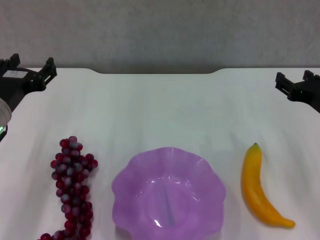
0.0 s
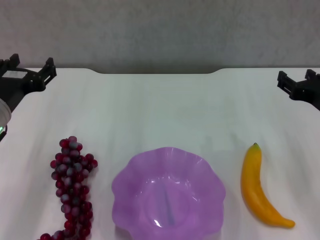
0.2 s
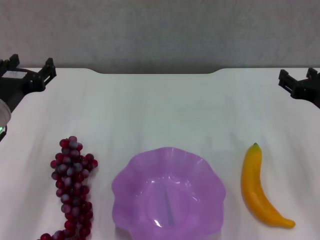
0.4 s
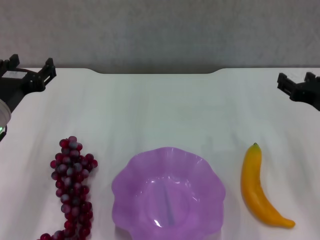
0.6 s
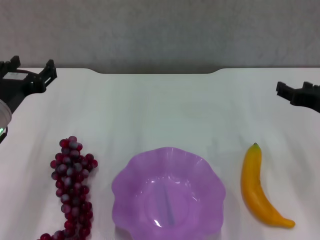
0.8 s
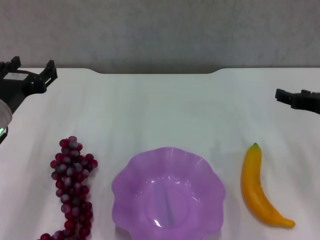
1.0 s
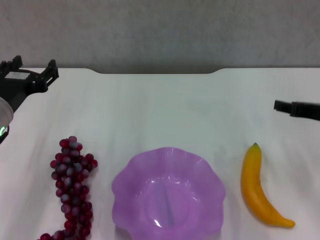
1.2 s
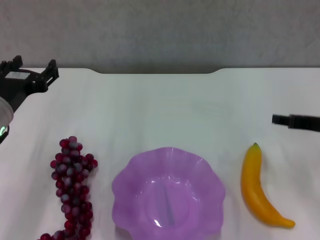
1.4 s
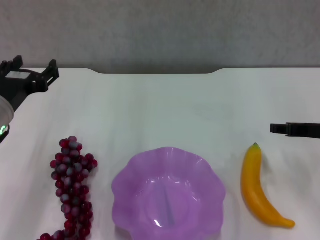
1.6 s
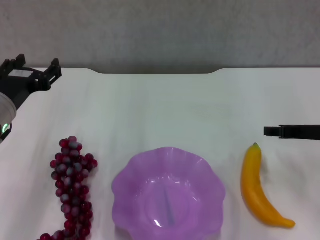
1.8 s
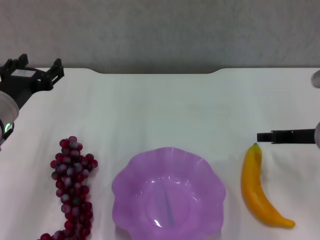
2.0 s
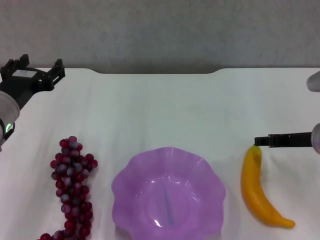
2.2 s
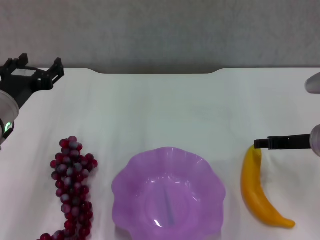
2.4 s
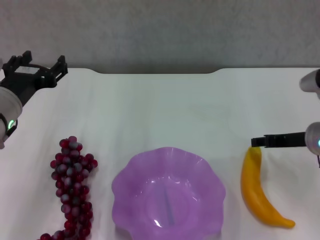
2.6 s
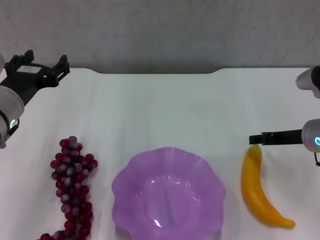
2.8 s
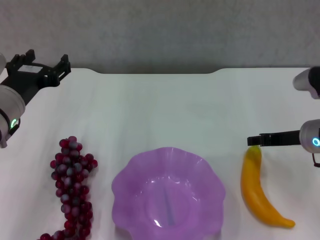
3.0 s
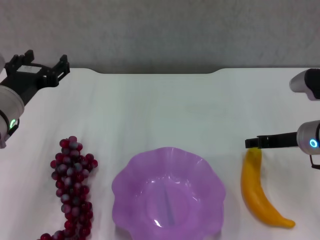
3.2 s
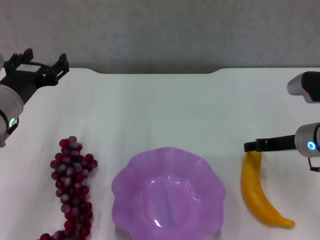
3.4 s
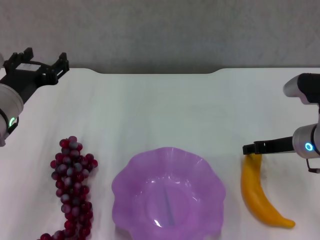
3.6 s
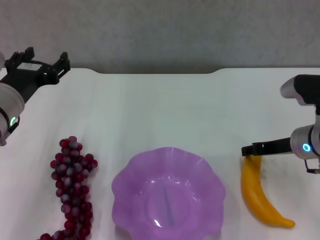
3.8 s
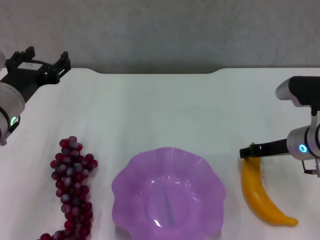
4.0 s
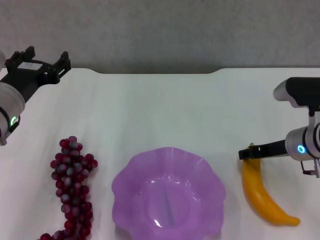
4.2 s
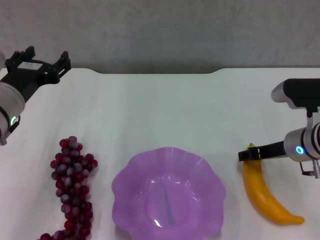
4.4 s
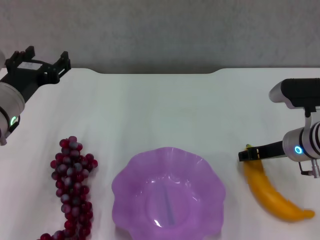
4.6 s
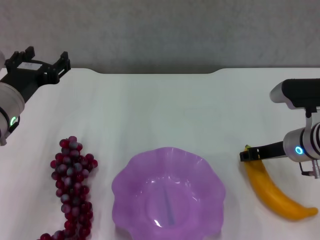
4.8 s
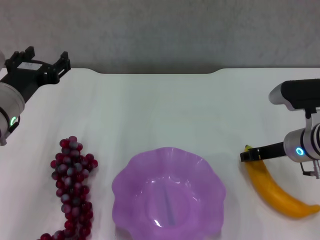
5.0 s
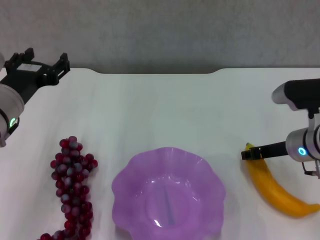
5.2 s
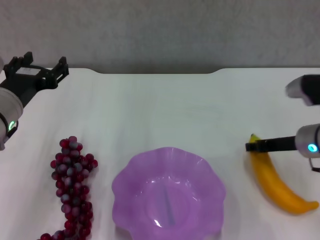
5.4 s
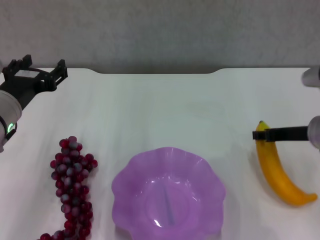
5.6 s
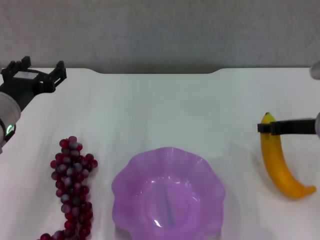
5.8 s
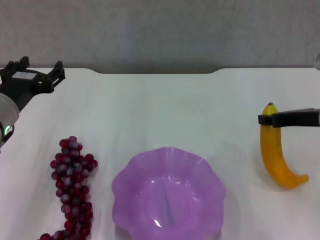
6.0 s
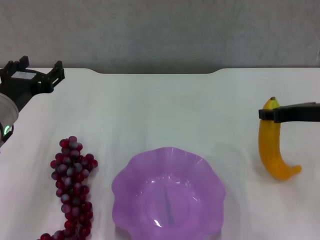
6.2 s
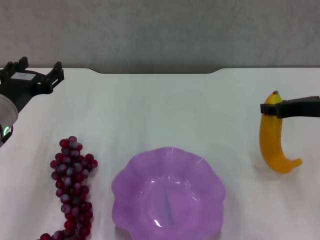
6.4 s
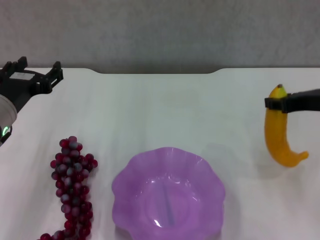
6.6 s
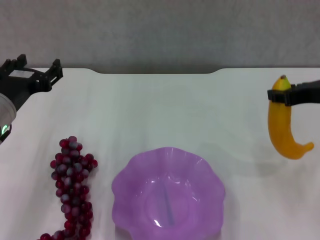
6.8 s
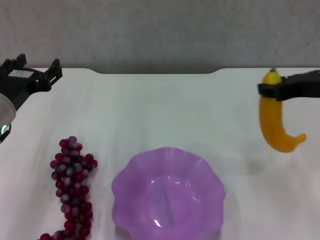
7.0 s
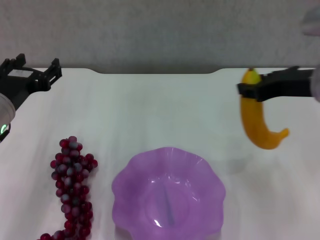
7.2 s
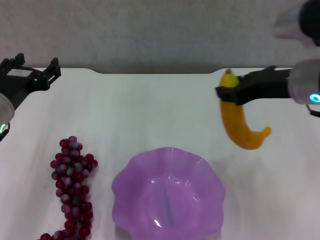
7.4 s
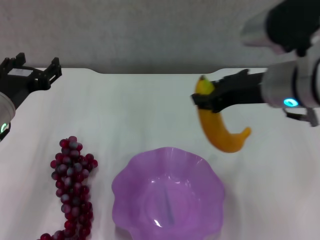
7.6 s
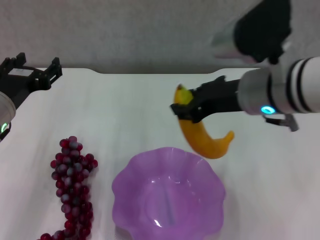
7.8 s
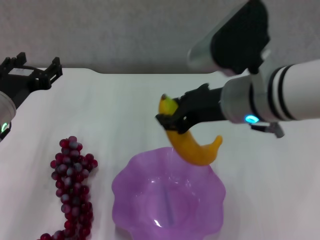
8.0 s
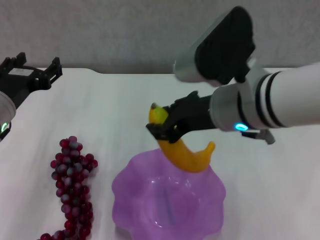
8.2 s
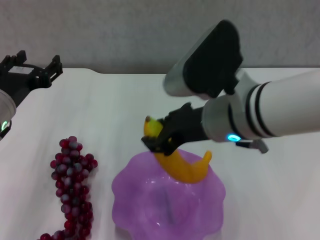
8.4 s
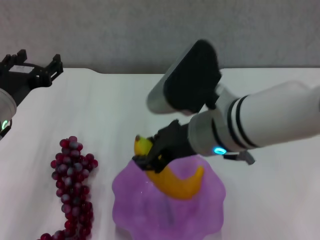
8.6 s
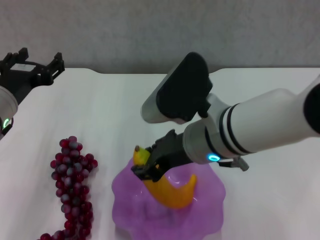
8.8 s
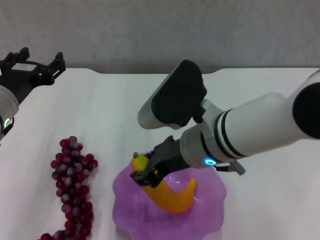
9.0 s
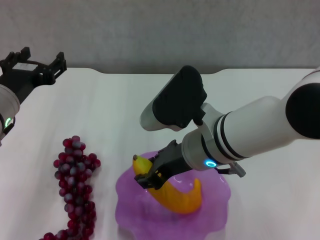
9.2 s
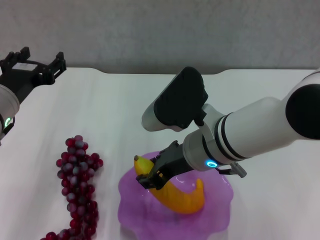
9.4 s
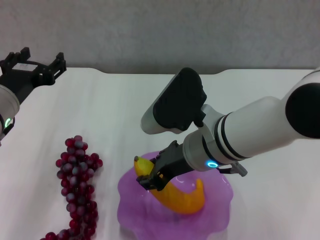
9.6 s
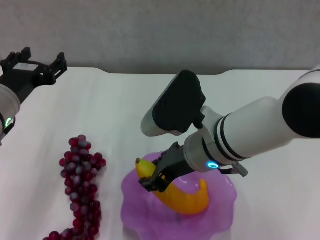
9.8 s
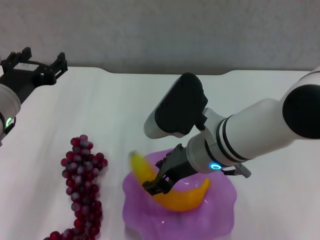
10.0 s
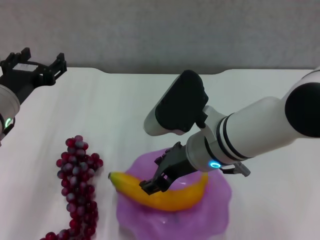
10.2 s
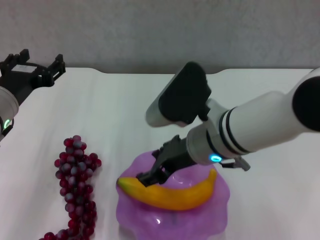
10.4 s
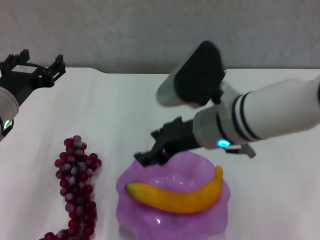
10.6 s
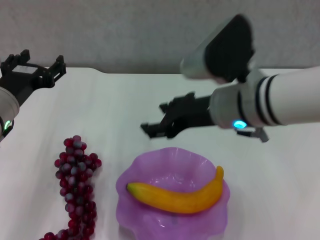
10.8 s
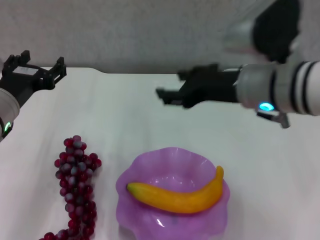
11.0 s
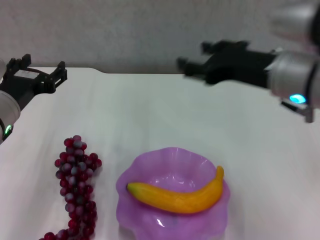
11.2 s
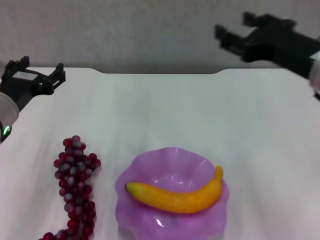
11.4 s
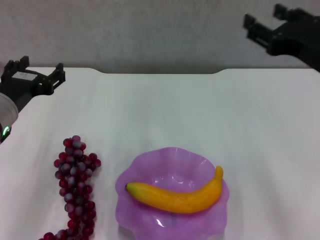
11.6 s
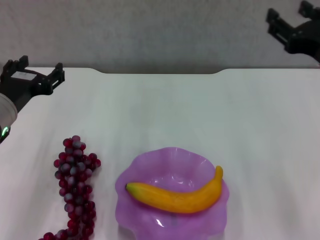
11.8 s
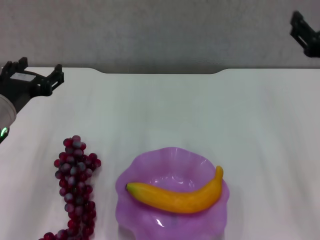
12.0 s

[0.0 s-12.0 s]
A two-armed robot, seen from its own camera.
Step, 0.0 to 5.0 s: Grasp the banana with right gripper.
Step, 5.2 to 10.2 s: Place the banana in the purple plate with right gripper.
0.0 to 1.6 s: The right gripper closes up.
1.6 to 3.0 s: The right gripper moves approximately 5 cm.
3.0 to 4.4 s: The grippers make only small movements.
4.4 to 6.0 s: The right gripper travels upward by roughly 5 cm, and closes its fingers.
6.0 to 7.6 s: The right gripper heads to the left and upward, covering some 15 cm.
7.6 to 9.0 s: The right gripper moves to the left and downward, some 10 cm.
9.0 to 10.4 s: The right gripper opens.
10.4 to 12.0 s: The right gripper travels to the right by about 15 cm.

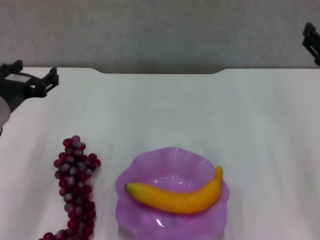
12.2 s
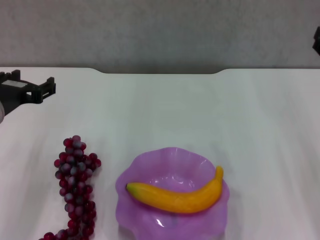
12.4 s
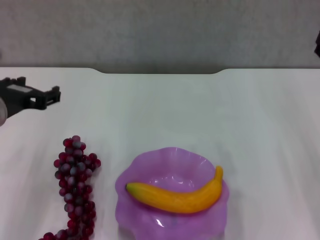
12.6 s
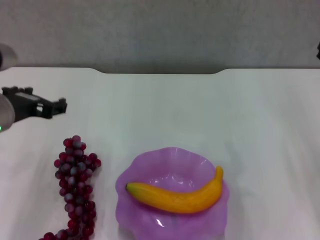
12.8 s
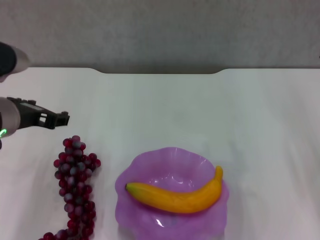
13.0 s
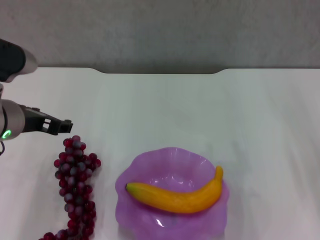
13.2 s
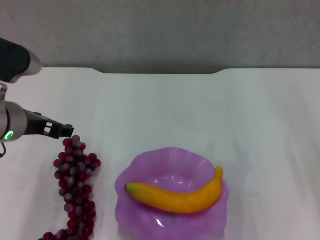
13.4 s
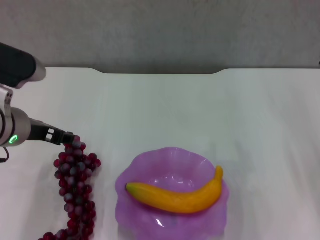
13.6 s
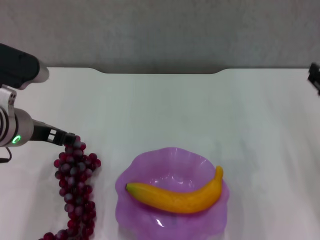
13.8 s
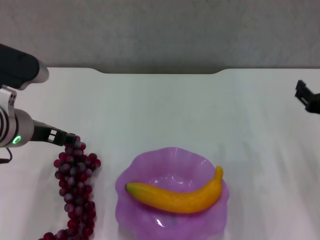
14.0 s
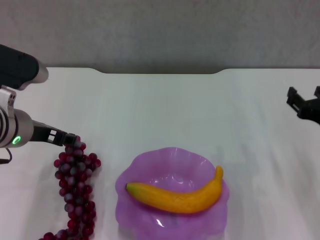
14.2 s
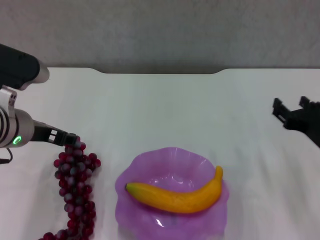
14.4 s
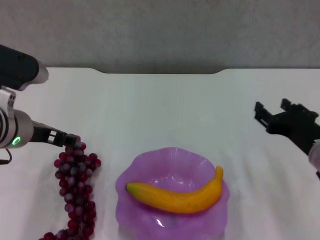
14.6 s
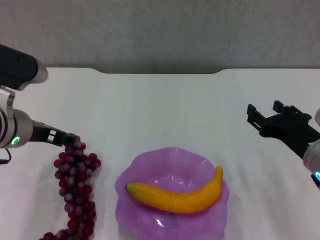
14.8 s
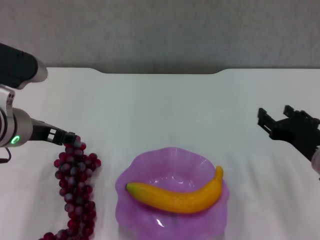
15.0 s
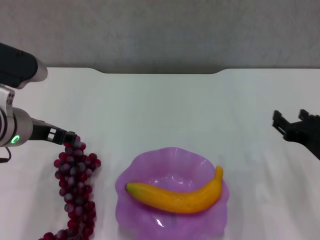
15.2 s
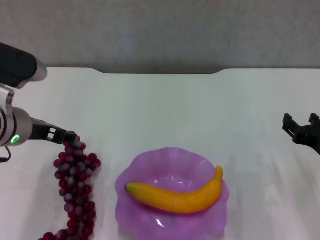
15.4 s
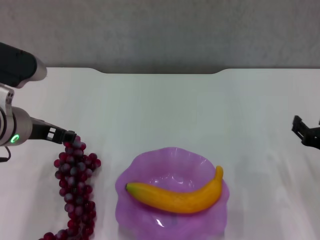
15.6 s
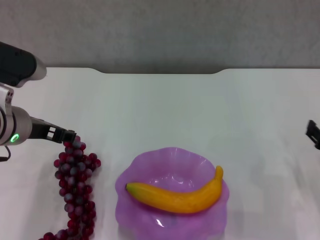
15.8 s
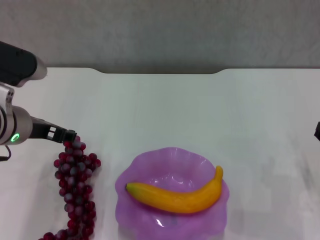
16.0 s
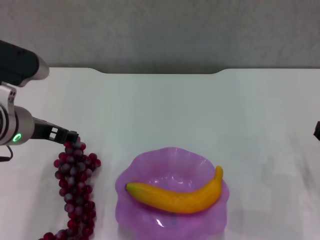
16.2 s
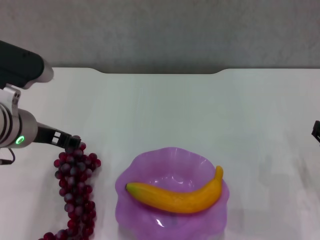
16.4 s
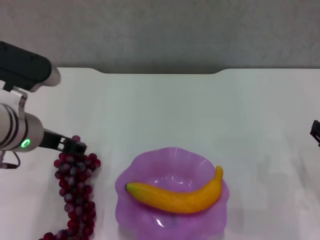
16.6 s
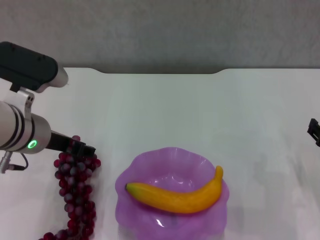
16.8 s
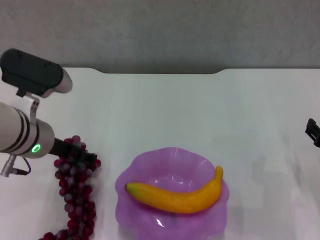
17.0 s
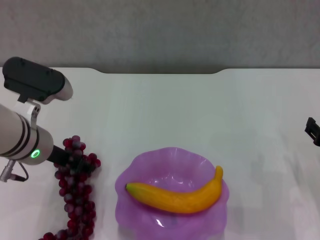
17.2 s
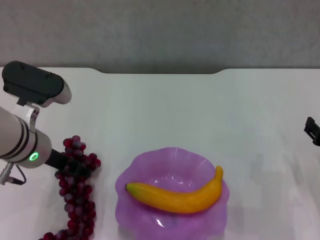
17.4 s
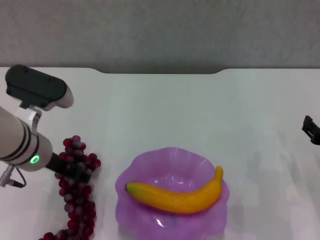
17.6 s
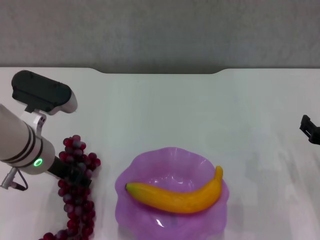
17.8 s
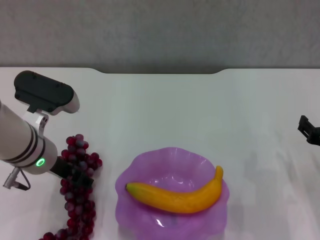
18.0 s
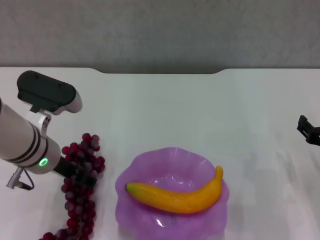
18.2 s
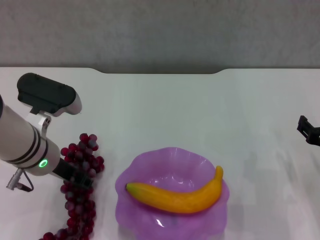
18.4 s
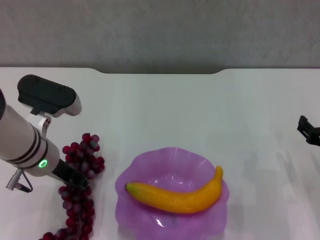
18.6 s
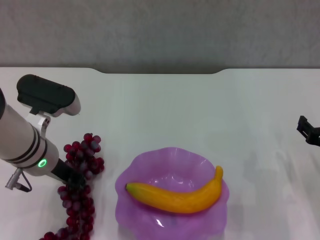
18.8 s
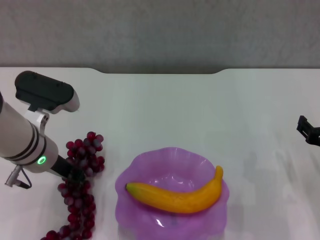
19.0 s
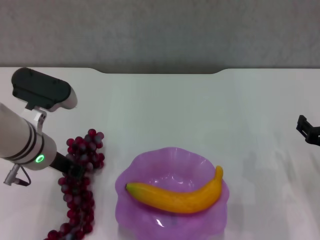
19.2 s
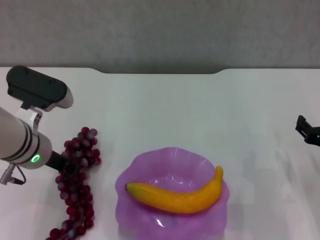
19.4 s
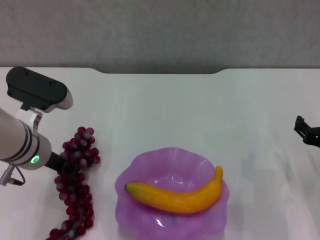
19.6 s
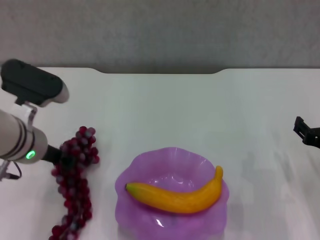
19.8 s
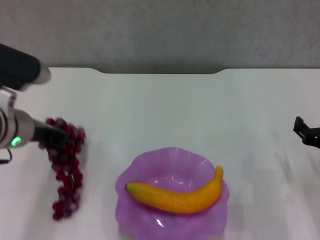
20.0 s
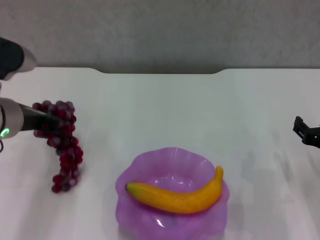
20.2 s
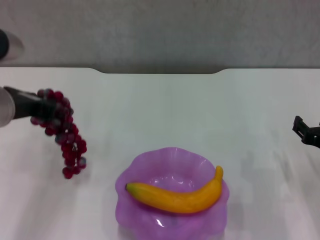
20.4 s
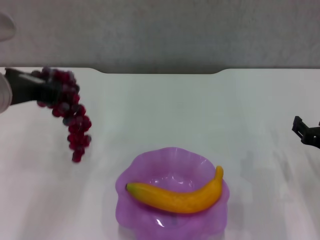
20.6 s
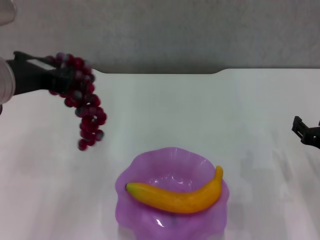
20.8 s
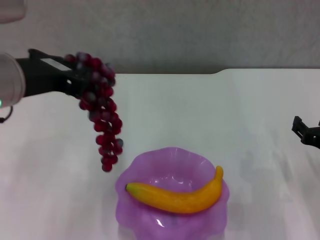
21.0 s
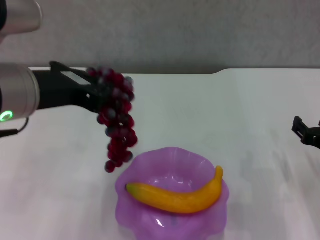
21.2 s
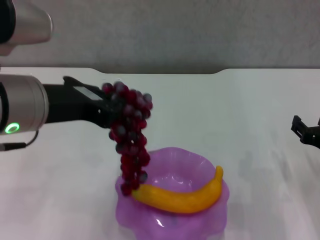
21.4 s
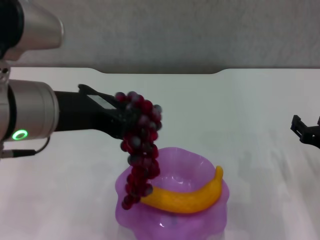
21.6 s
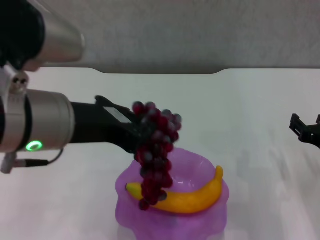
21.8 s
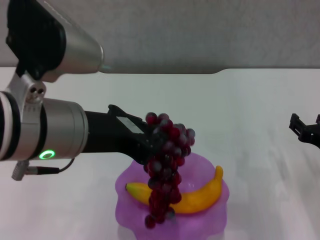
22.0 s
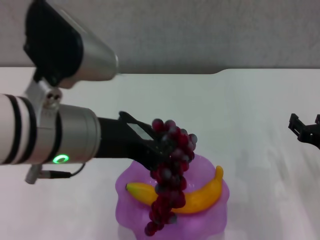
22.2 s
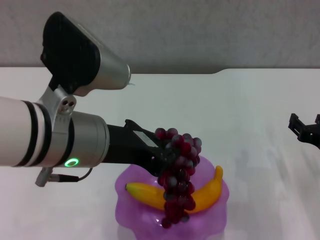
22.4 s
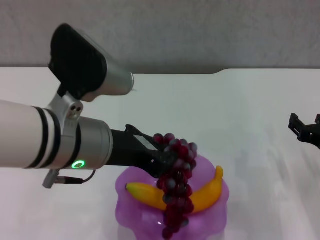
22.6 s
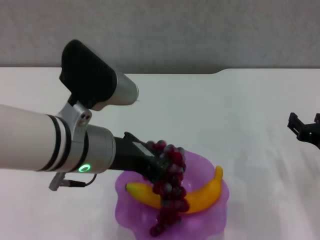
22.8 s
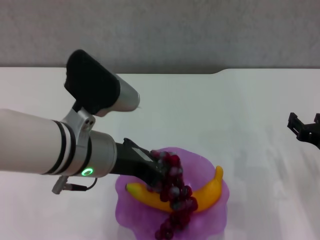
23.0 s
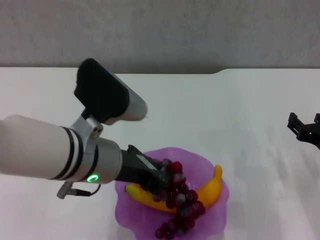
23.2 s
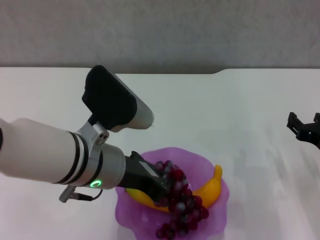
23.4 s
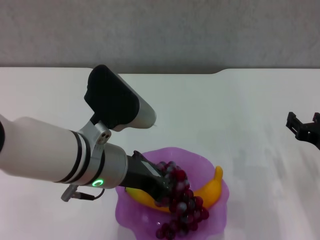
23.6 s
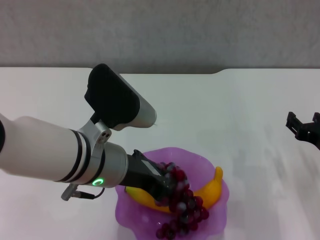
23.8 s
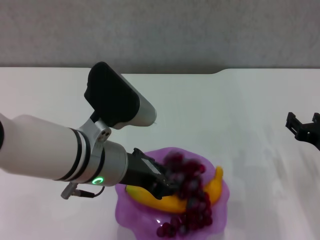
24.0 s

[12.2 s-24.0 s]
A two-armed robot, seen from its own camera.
Step, 12.2 to 18.6 s: Grasp the grape with left gripper.
13.6 to 15.2 s: The right gripper travels downward by about 5 cm.
15.2 to 16.6 s: The right gripper changes place by some 5 cm.
16.6 to 18.2 s: The grippers move only a little.
18.2 to 19.6 s: The left gripper closes its fingers.
19.6 to 21.0 s: The left gripper shifts about 15 cm upward and backward.
21.0 to 22.6 s: The left gripper goes approximately 10 cm to the right and downward.
22.6 to 24.0 s: The left gripper shifts by about 5 cm.
